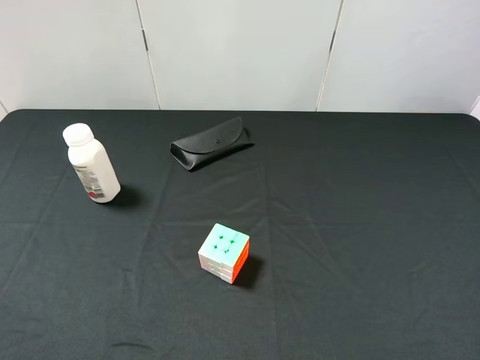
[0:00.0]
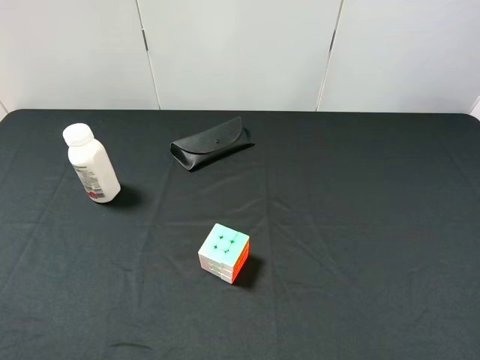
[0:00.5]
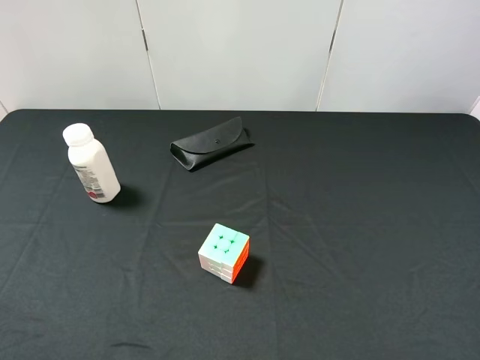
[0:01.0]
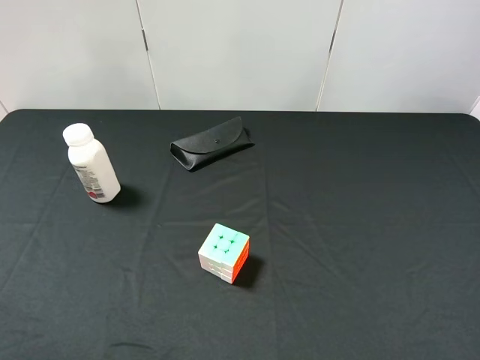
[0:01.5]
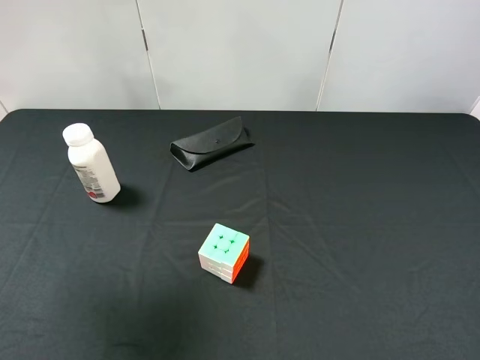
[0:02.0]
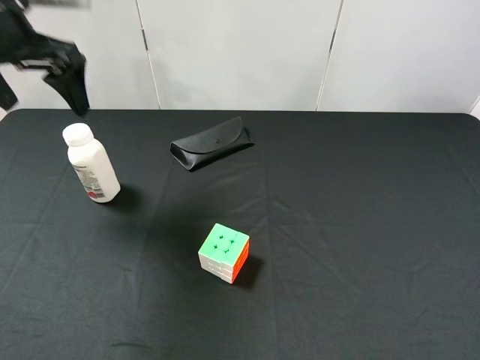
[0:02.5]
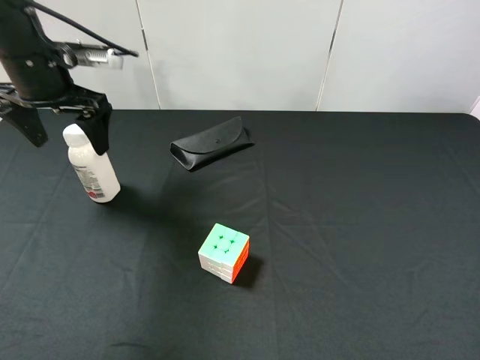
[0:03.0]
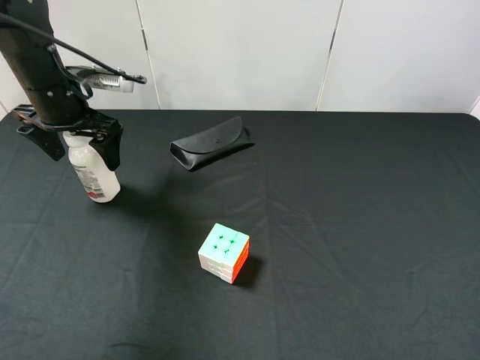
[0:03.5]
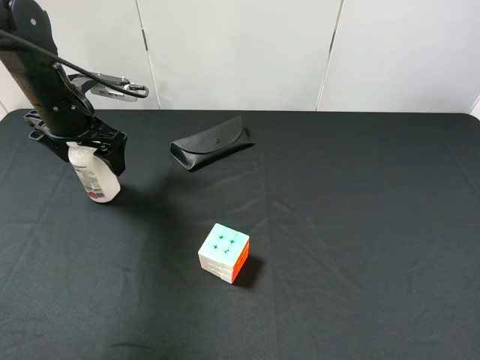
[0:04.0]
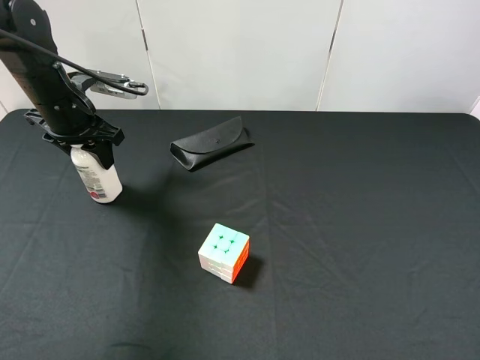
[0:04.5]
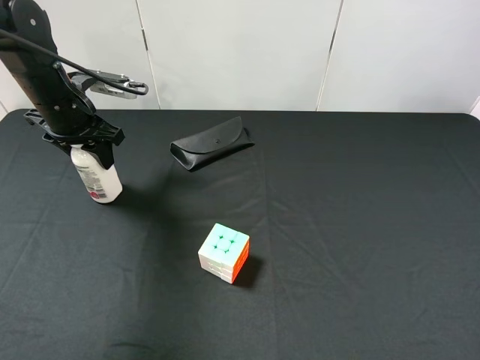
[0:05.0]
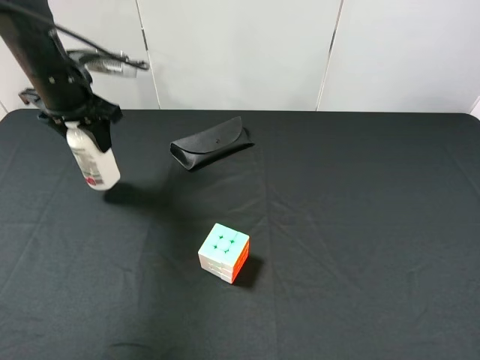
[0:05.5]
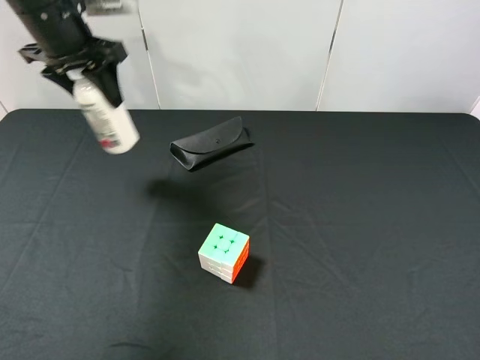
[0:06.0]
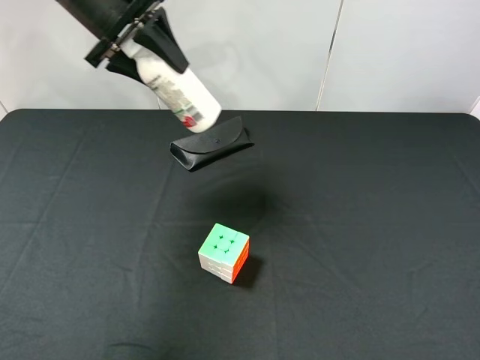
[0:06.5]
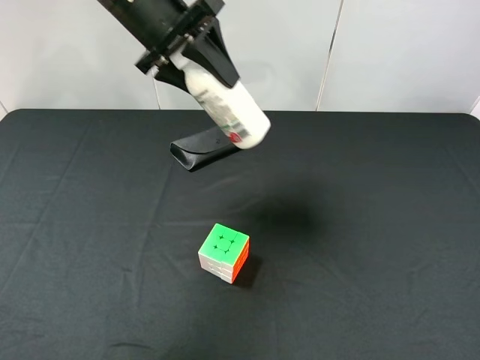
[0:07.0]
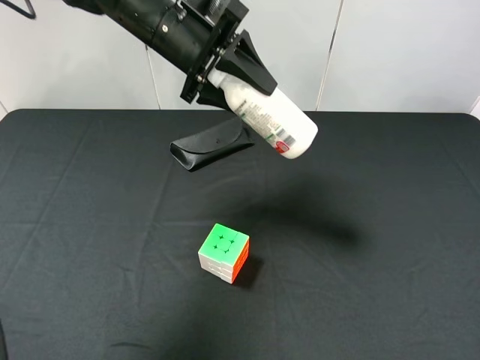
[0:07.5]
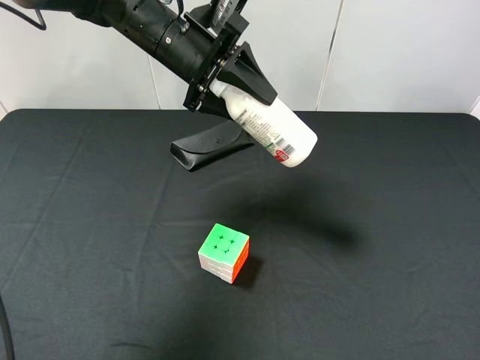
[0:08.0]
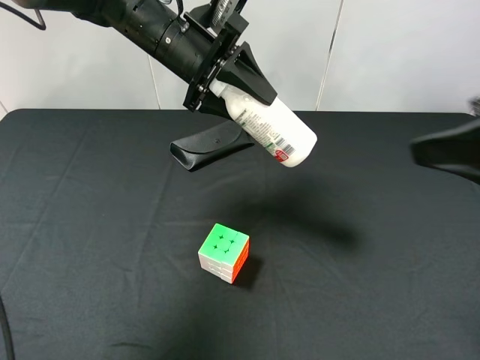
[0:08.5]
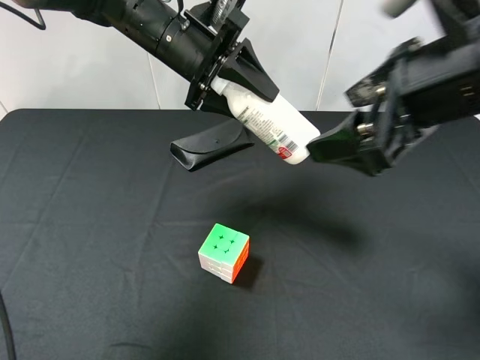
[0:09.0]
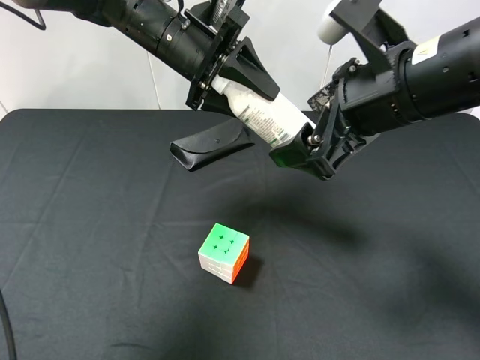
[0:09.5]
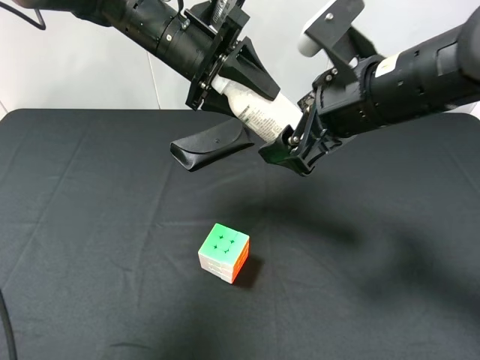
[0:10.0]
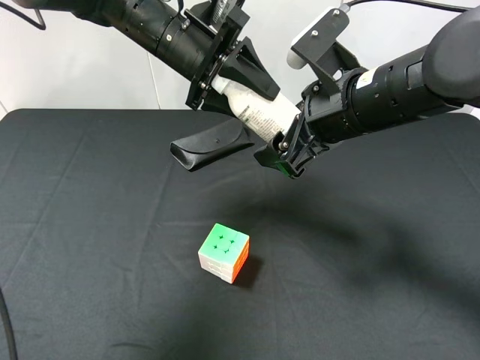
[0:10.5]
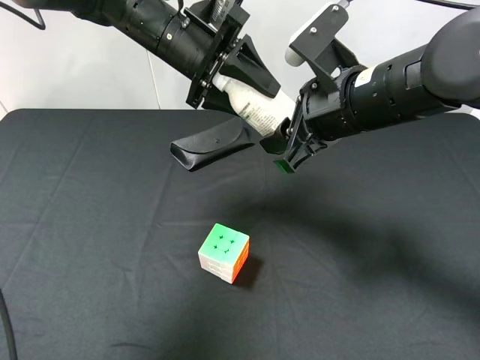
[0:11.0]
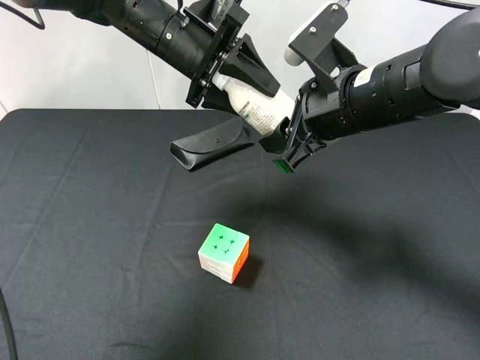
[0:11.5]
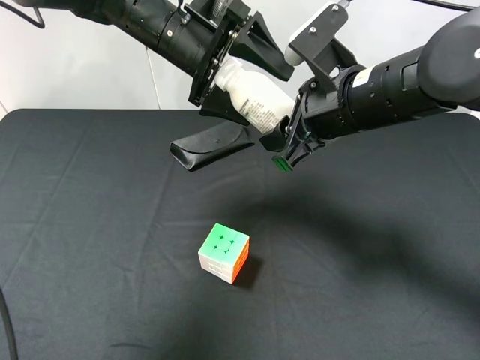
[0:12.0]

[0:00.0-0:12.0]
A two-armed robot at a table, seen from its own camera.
Task of the whole recording: use the left gripper to pick up the item and transfer it from the left gripper to the right gripper.
0:00.0 to 0:02.0: The left gripper travels forward and upward by approximately 25 cm.
0:02.0 to 0:04.0: The left gripper goes about 25 cm downward and forward.
0:04.0 to 0:06.0: The left gripper is displaced upward by some 10 cm, and closes.
0:06.0 to 0:08.0: The left gripper travels to the right by roughly 15 cm.
0:08.0 to 0:10.0: The right gripper shifts approximately 25 cm forward and to the left.
0:10.0 to 0:12.0: The right gripper closes its fingers. The left gripper opens.

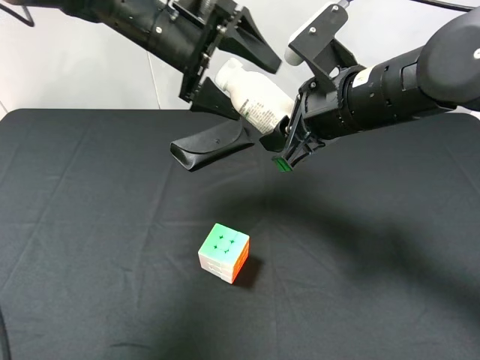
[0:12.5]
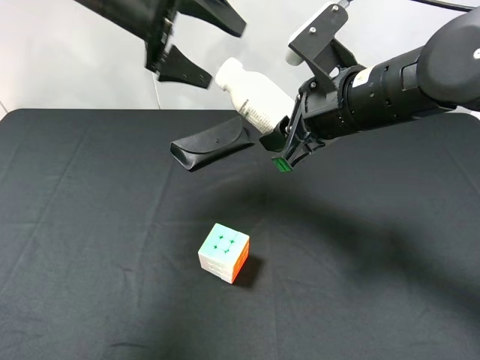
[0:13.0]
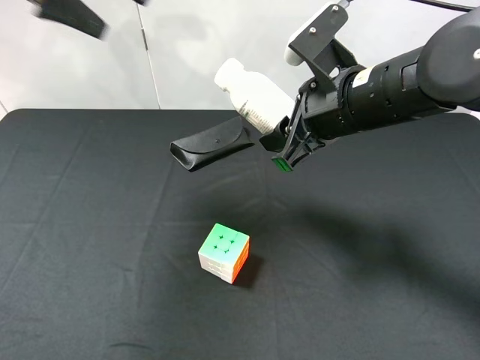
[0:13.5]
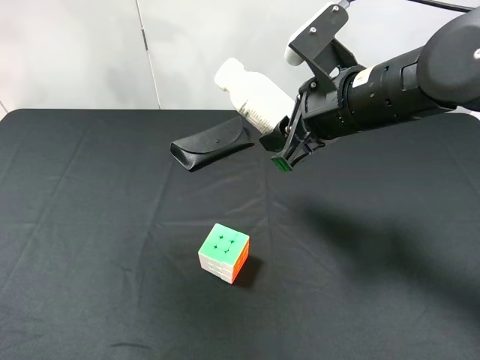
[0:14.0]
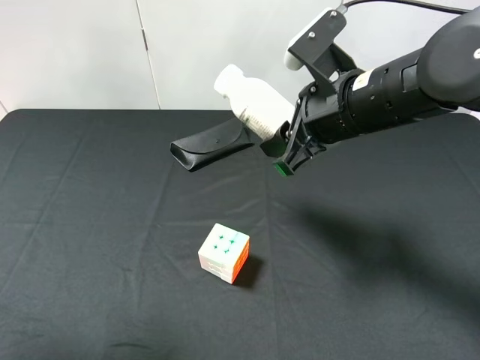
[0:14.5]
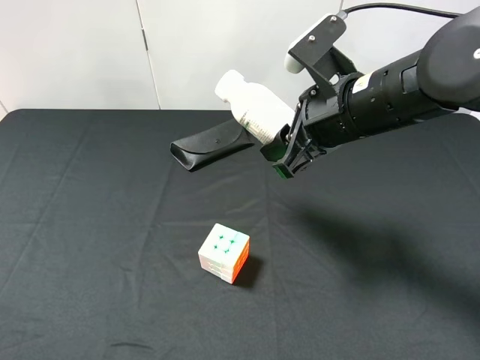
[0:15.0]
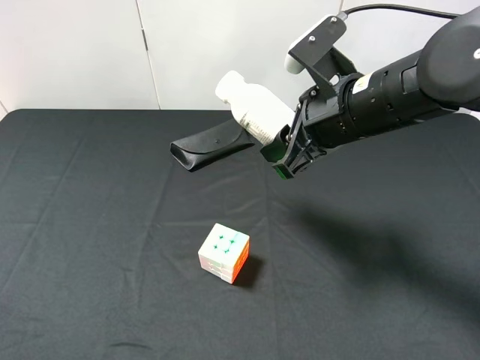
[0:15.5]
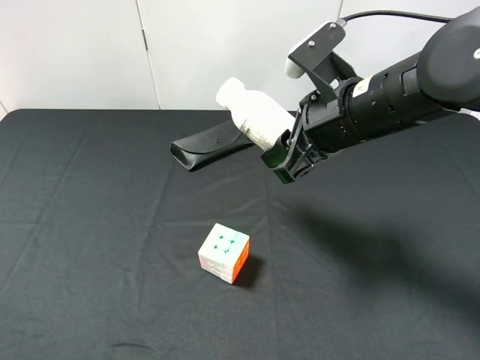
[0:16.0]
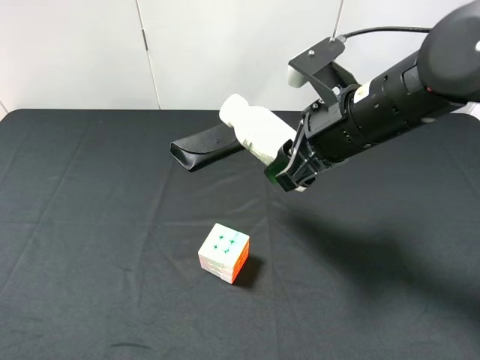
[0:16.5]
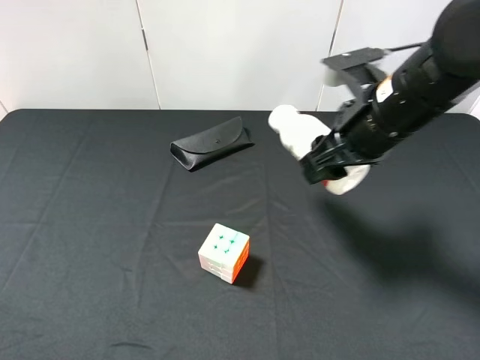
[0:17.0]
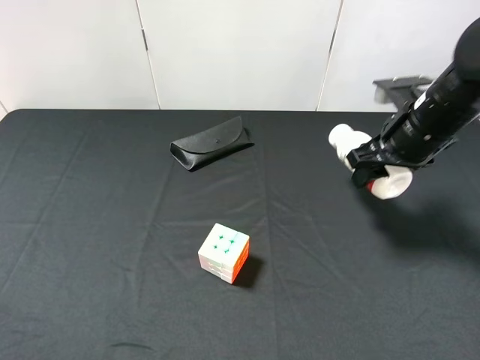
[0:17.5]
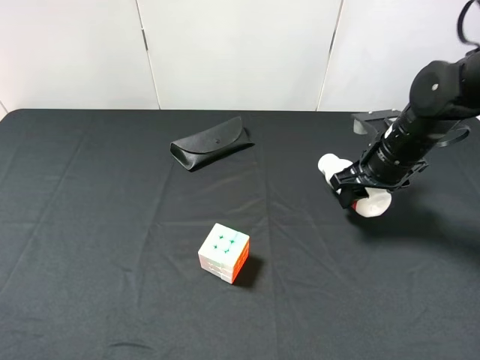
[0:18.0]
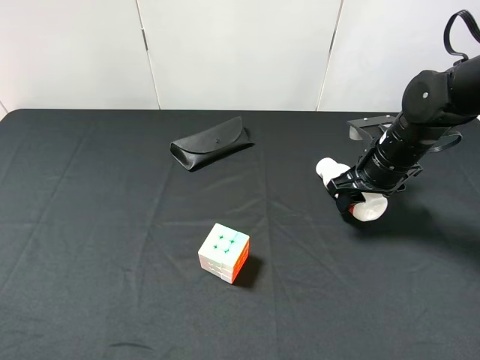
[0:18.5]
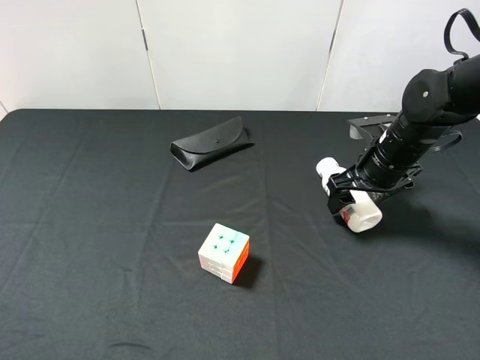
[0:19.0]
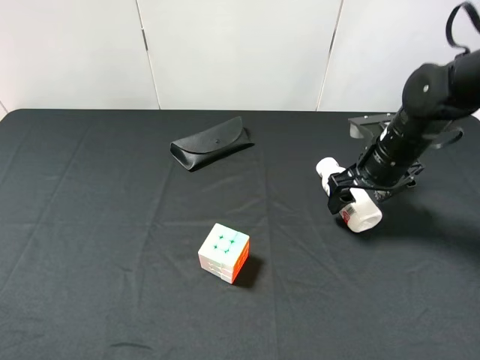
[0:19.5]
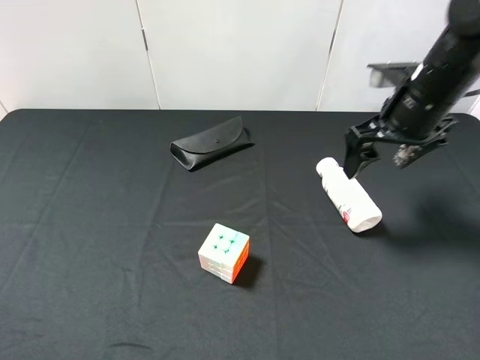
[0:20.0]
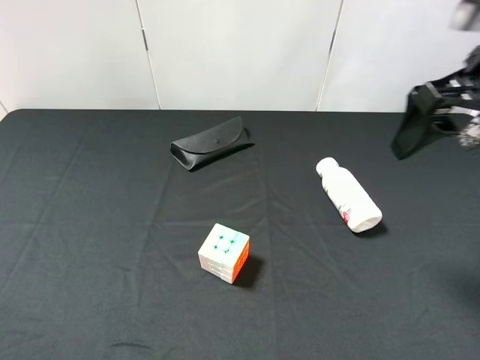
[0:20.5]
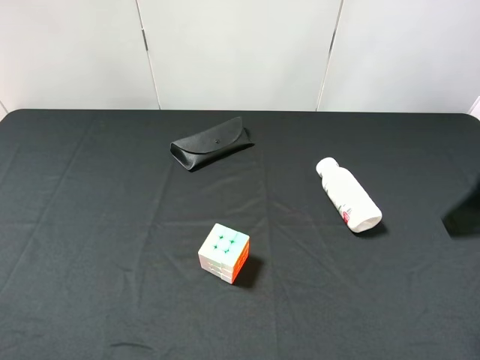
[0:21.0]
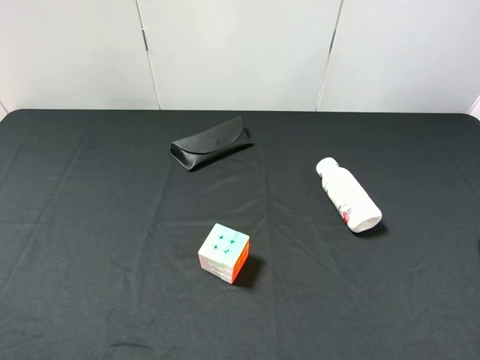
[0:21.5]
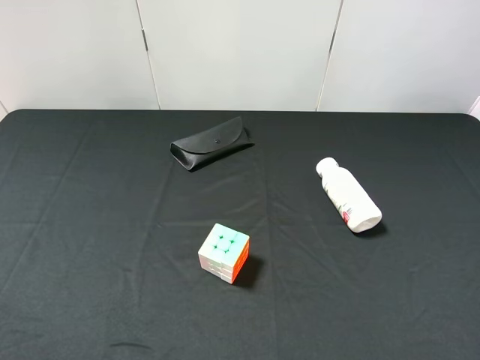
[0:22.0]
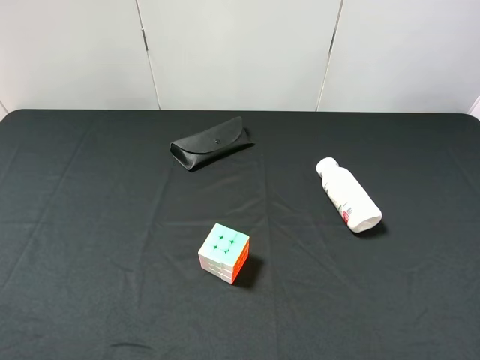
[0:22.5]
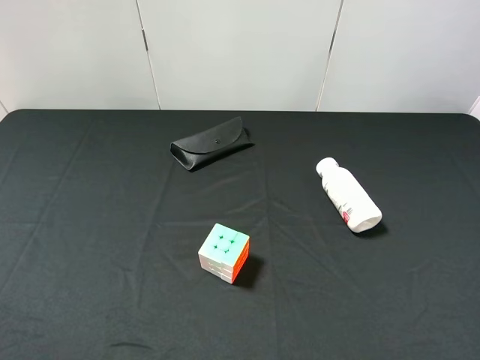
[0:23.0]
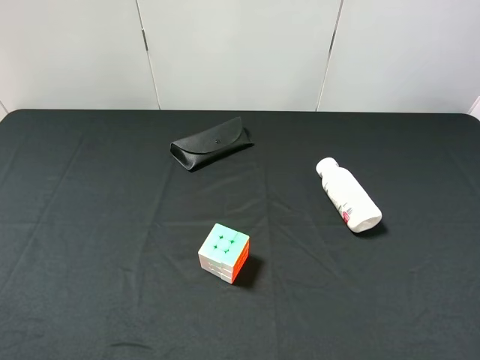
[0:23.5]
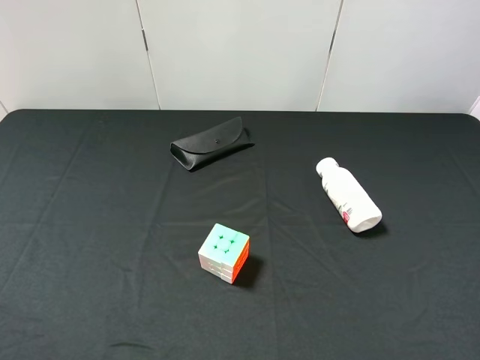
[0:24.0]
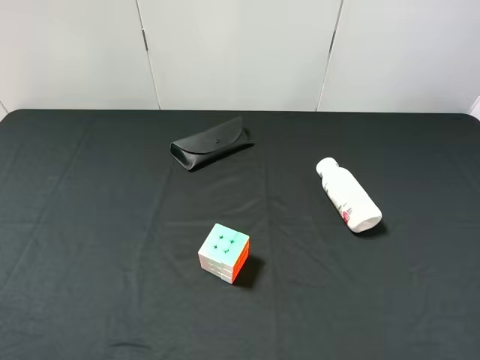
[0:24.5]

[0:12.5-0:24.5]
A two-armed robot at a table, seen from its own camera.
Task of the whole recording: use the left gripper to pick up the item and transfer it from the left gripper to the right gripper.
0:12.5 to 0:14.5: The left gripper heads backward, to the left and upward, covering about 40 cm.
0:14.5 to 0:16.5: The left gripper heads downward and backward, covering roughly 15 cm.
0:16.5 to 0:18.5: The right gripper is displaced downward, to the right and forward by some 15 cm.
0:18.5 to 0:20.5: The right gripper is displaced upward and backward by some 20 cm, and opens up.
0:20.5 to 0:22.5: The right gripper goes approximately 20 cm backward.
